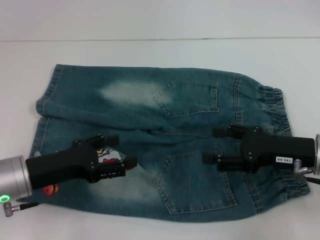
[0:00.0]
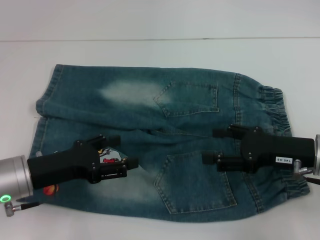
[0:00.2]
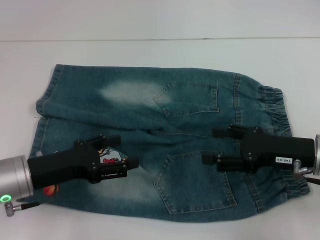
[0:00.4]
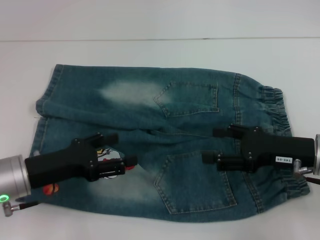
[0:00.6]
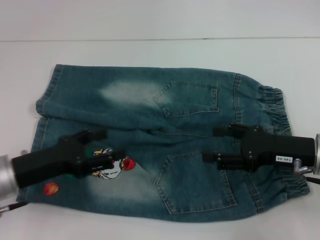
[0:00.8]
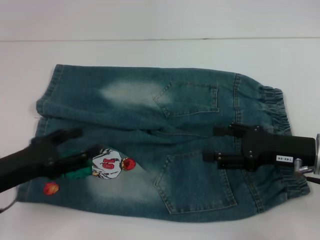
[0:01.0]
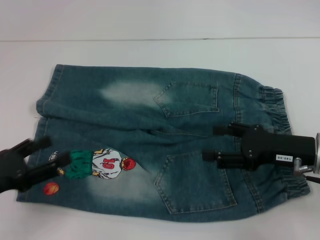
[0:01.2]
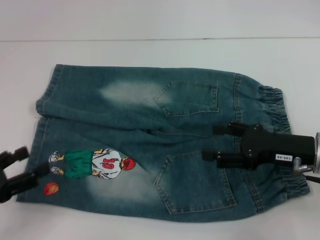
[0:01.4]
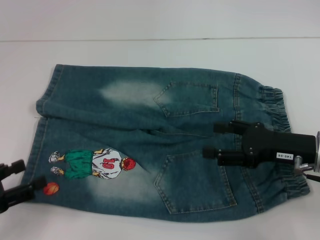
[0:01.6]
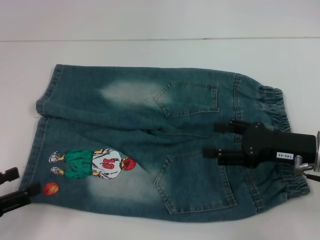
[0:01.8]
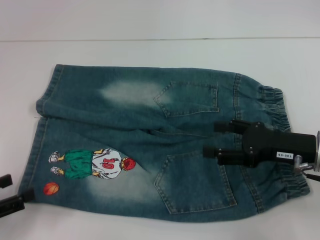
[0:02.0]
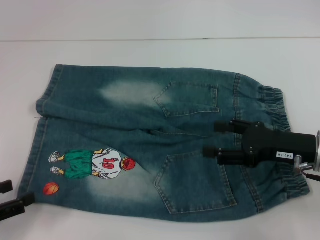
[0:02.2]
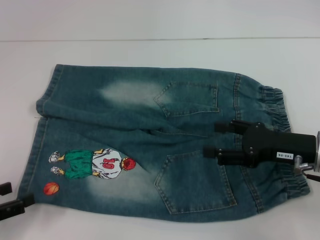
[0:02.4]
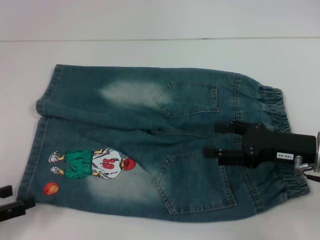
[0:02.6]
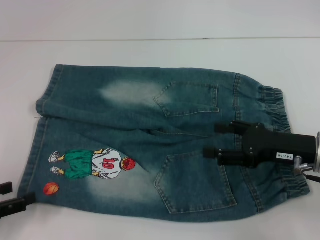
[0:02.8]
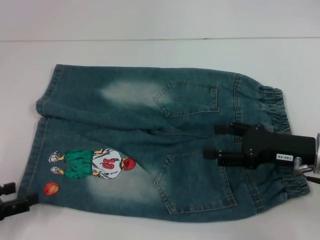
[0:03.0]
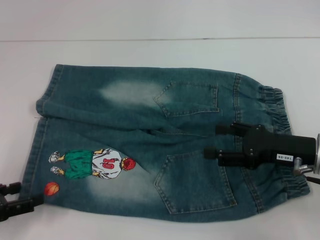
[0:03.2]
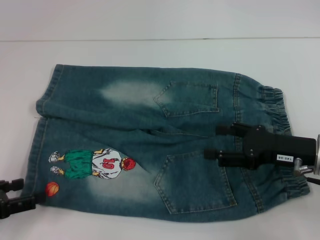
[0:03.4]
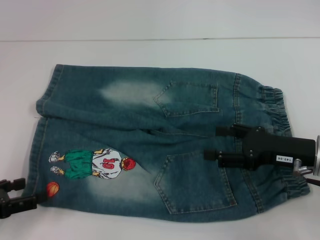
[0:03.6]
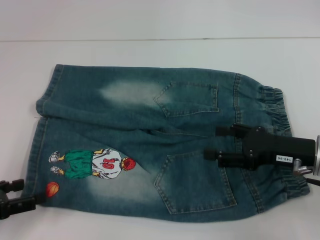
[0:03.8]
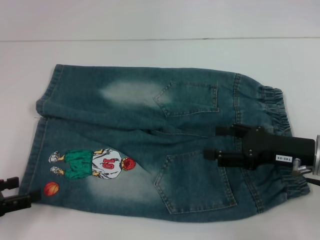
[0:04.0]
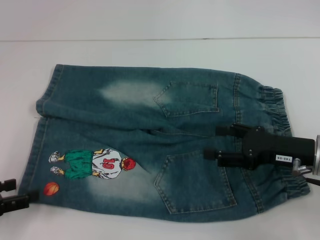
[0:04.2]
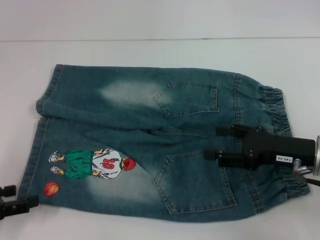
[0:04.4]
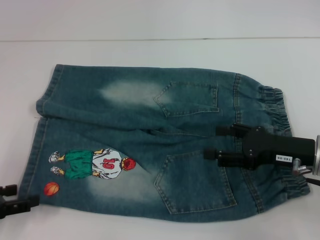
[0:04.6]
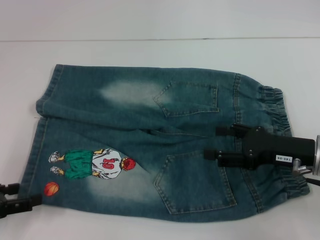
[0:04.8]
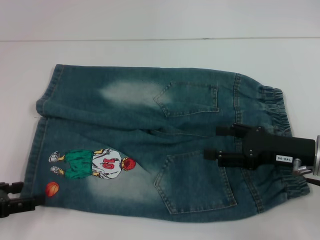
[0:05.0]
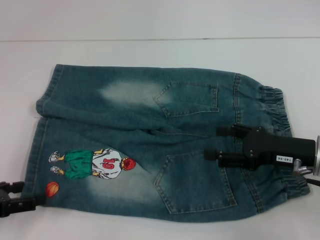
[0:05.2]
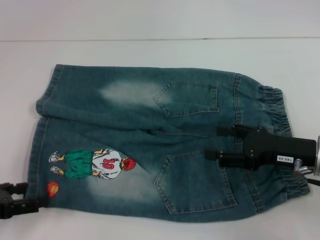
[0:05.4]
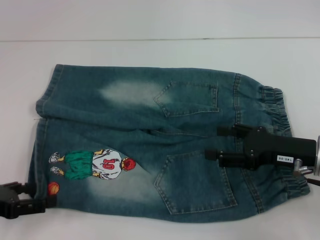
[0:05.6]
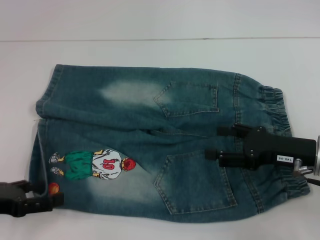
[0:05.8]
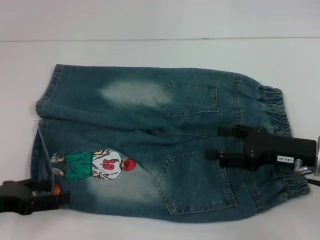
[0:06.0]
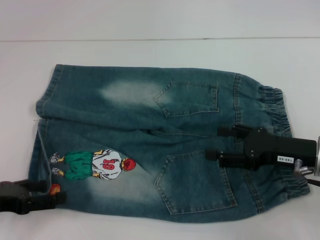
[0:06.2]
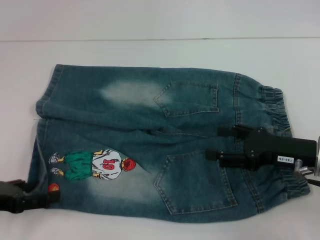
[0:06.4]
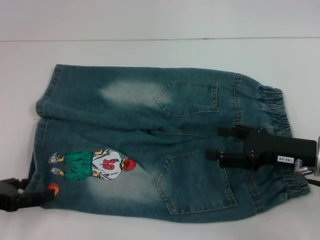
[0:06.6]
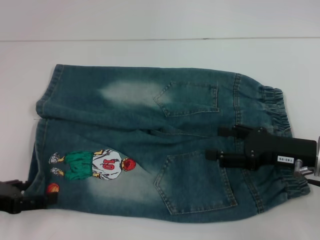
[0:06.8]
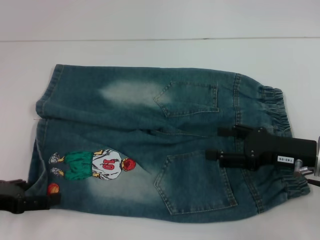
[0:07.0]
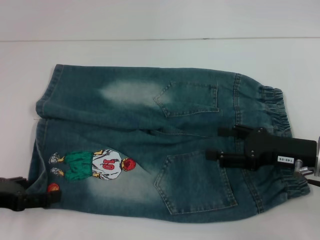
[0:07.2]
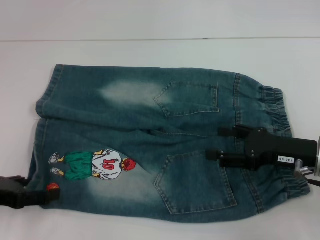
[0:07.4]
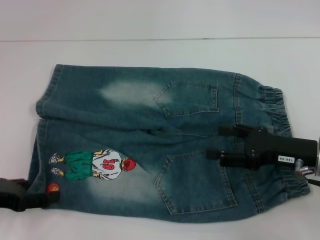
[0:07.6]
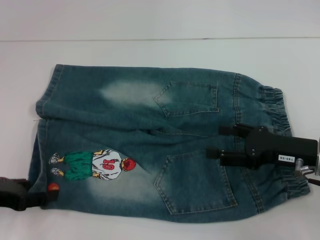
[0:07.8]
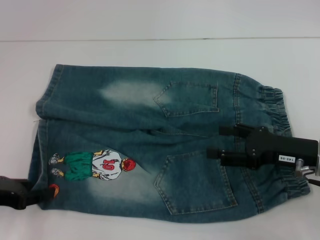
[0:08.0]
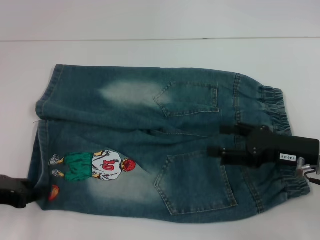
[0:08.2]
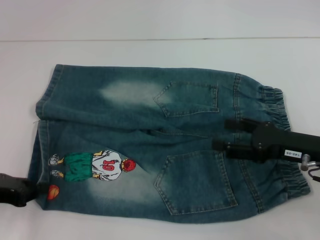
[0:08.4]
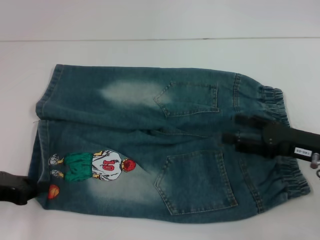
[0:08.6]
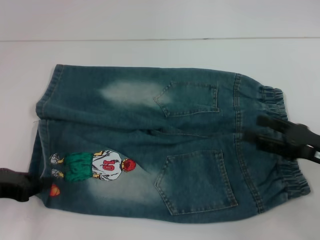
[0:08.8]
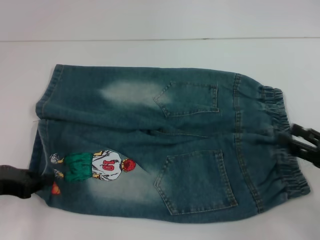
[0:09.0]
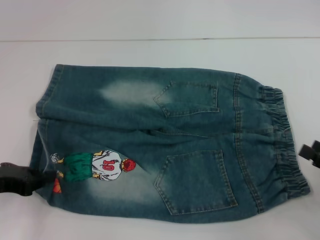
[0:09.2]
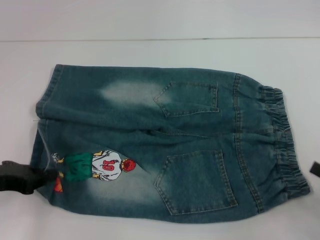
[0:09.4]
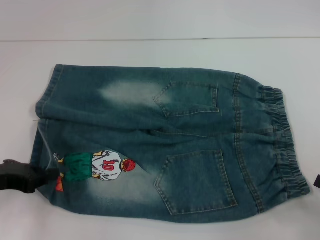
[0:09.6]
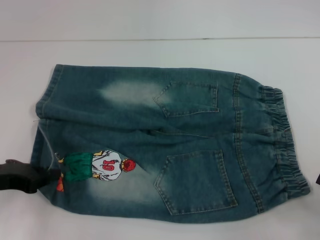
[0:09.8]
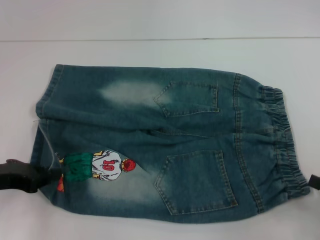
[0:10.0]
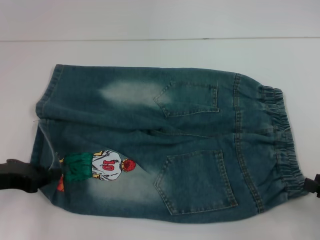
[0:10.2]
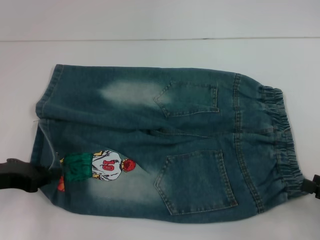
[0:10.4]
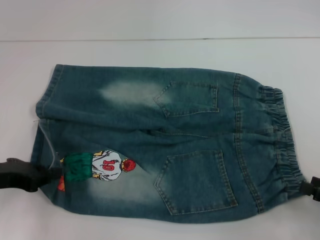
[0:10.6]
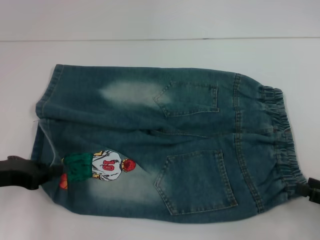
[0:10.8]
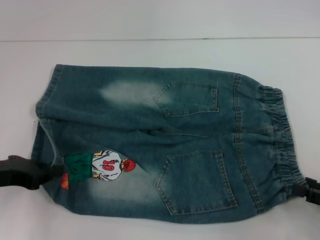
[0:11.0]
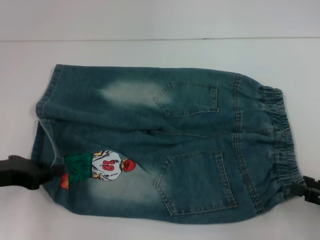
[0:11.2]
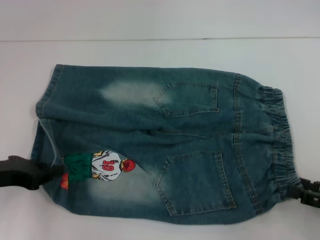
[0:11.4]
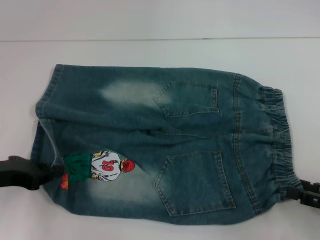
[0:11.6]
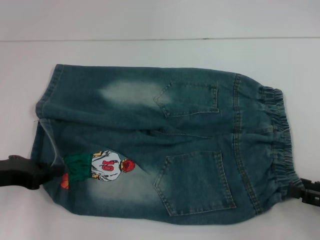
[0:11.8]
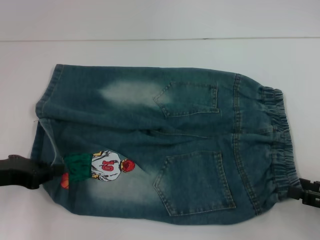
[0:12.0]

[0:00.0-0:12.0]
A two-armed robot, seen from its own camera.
Step, 0:00.0 to 0:09.2: Grab the lower left pant leg with your left hand.
0:00.0 to 0:01.6: The left gripper heads to the left and backward, covering some 15 cm.
0:01.6 to 0:03.0: The grippers make only small movements.
0:03.0 to 0:07.6: The grippers stay close to where they were, moving slightly.
0:07.6 to 0:09.0: The right gripper is displaced to the right and backward by roughly 10 cm; the left gripper closes.
0:09.0 to 0:10.4: The right gripper travels backward by approximately 5 cm.
0:10.4 to 0:12.0: There are only small adjustments of the grippers.

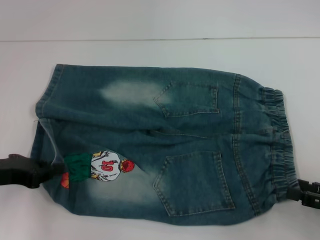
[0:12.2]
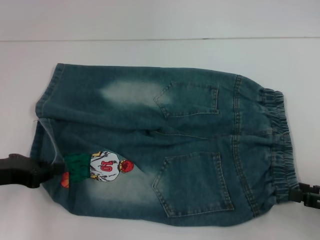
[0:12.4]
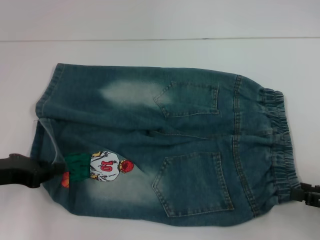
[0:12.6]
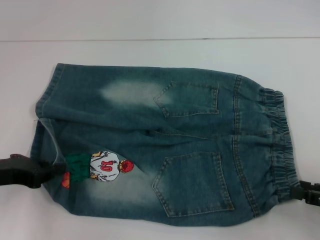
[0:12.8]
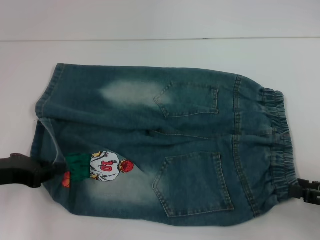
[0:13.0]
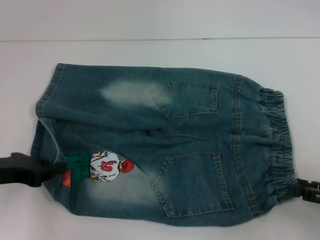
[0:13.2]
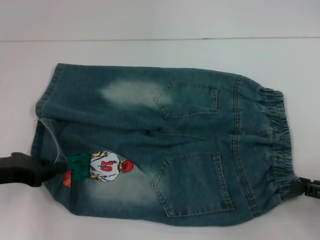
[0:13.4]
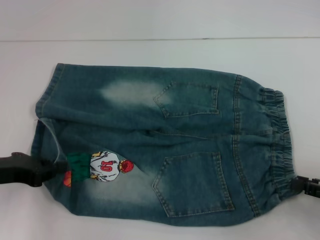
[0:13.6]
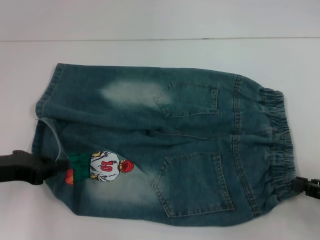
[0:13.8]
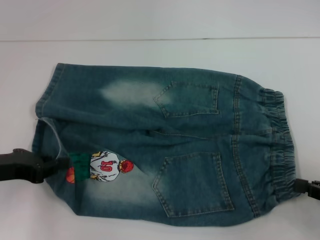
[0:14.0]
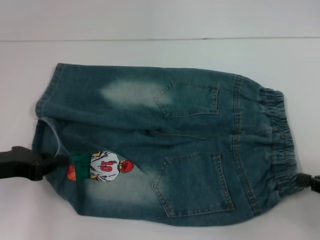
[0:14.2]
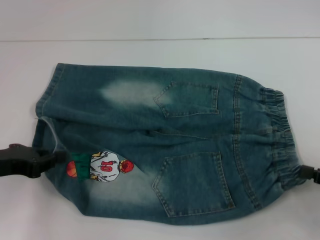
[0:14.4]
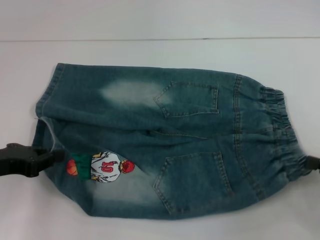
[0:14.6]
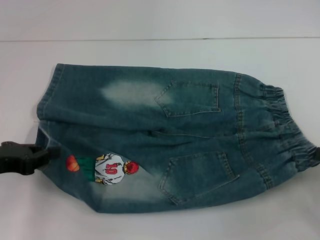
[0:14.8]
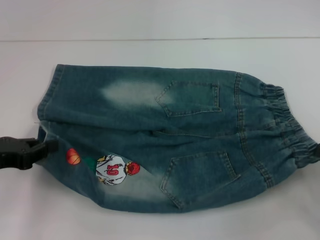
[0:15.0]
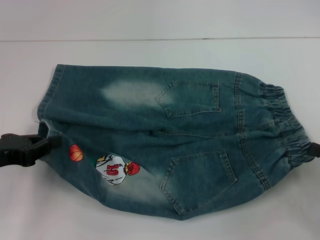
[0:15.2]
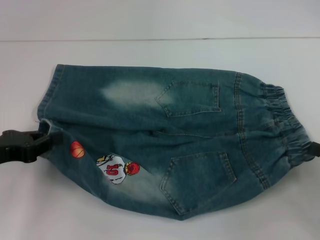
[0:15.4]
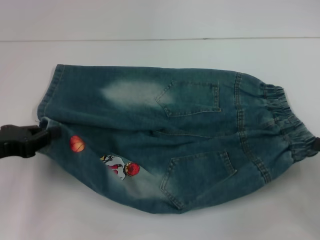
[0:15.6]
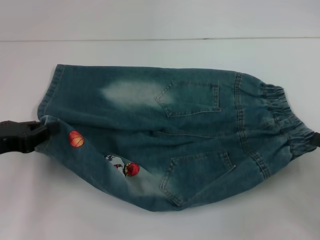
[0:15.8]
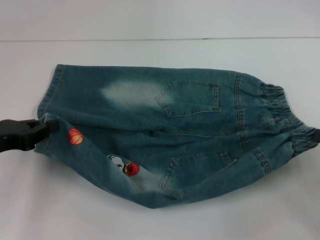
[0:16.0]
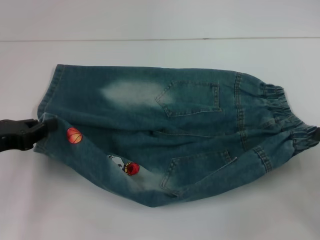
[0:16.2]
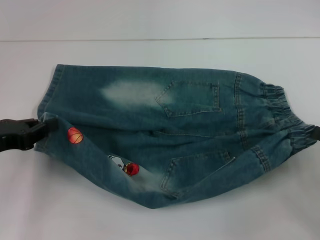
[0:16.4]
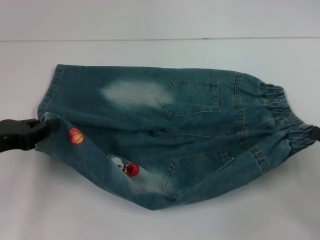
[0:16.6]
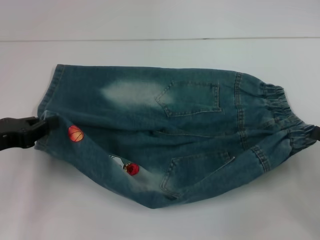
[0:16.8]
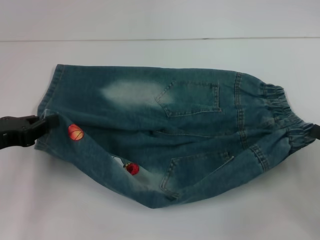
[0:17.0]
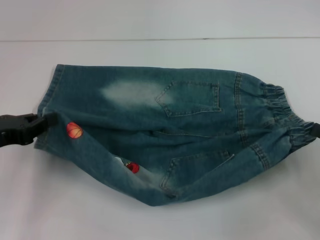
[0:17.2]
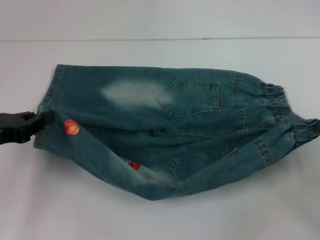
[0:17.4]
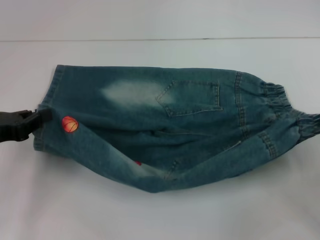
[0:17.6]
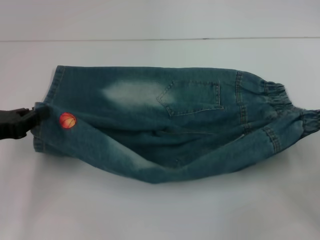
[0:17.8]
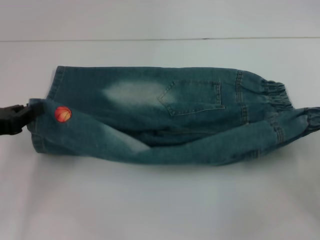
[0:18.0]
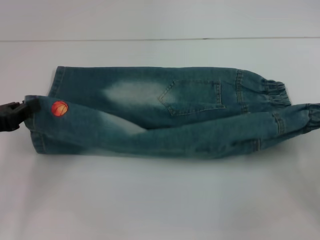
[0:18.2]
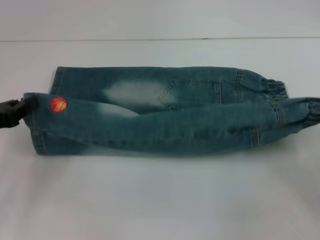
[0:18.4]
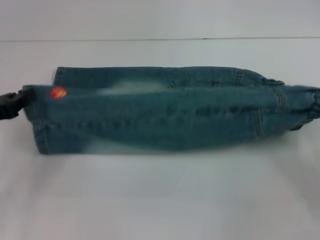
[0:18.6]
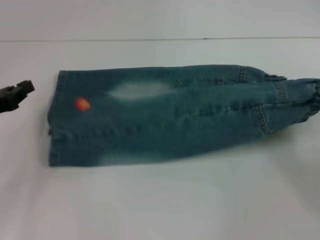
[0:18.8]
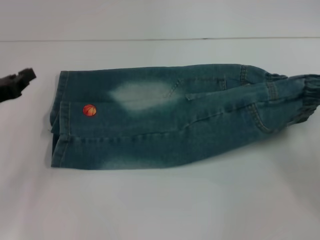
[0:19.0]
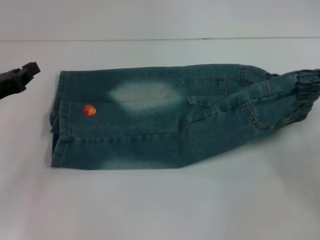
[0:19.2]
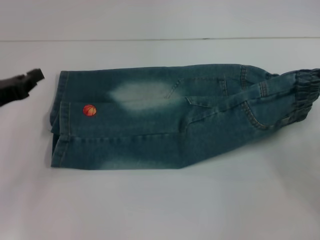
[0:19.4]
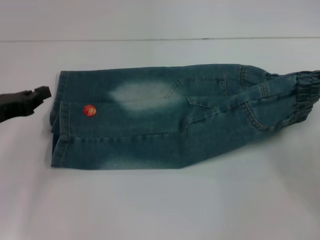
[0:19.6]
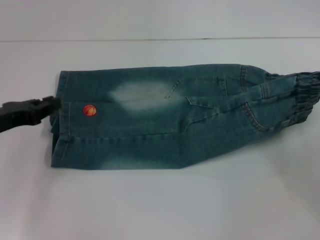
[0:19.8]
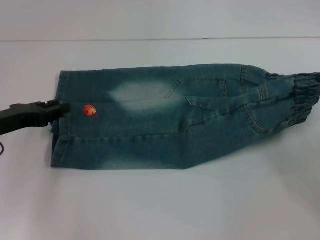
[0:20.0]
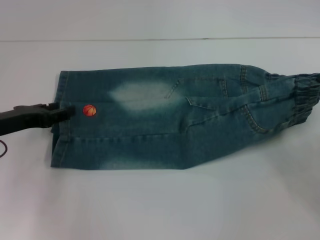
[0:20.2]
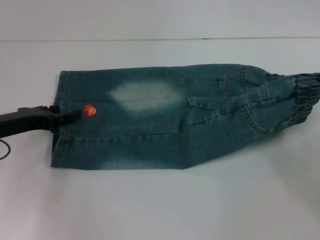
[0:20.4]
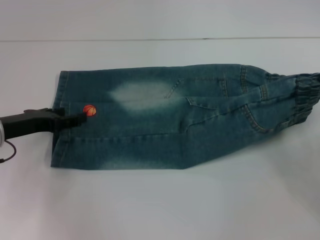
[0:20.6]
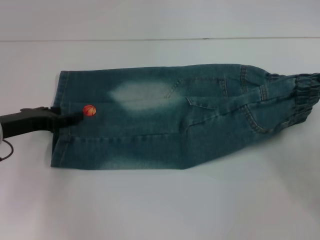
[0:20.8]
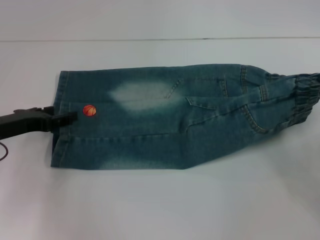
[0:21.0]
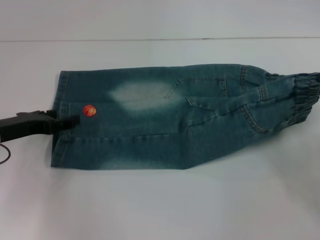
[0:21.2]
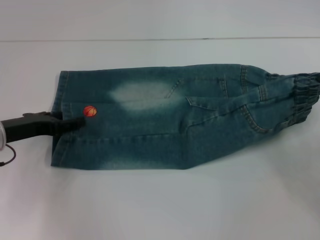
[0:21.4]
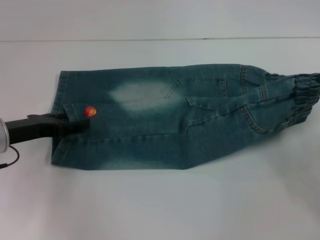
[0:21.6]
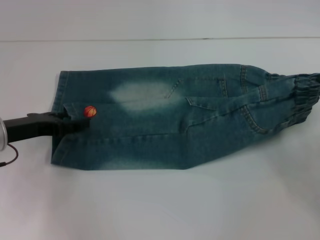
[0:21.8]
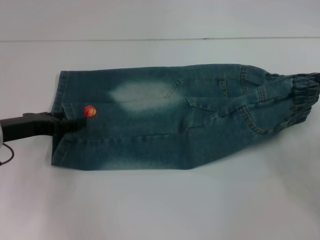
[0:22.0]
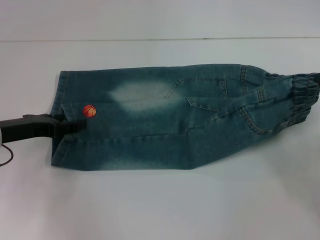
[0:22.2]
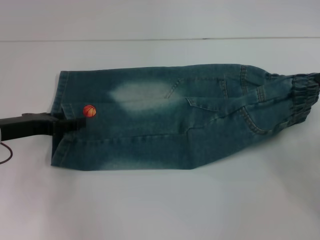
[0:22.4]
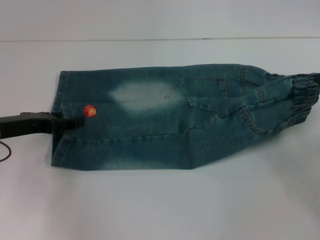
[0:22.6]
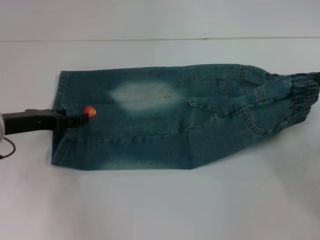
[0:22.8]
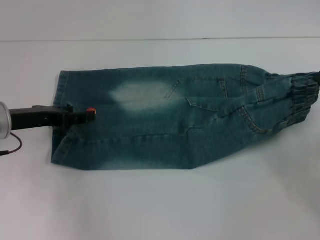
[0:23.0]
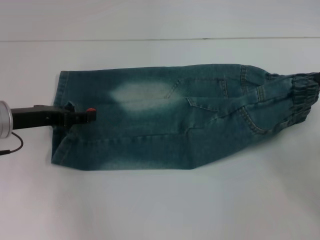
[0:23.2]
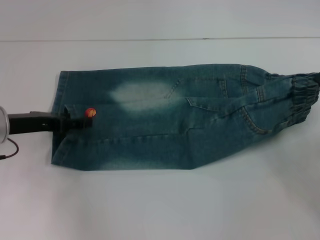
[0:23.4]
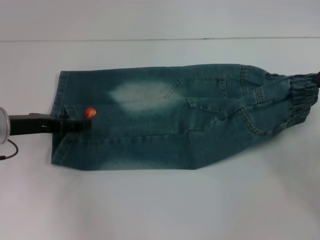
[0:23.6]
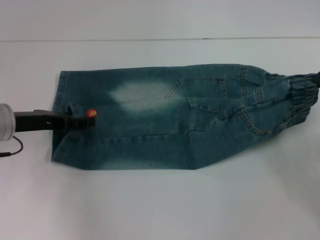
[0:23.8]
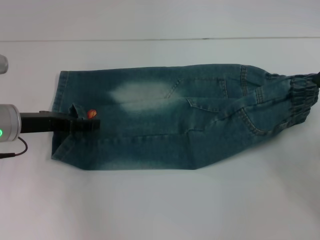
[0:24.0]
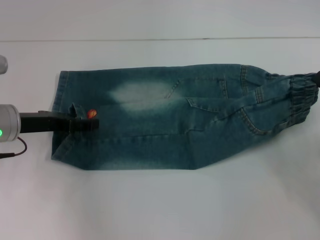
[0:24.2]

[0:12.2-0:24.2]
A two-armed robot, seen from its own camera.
0:12.2 to 0:13.8: The right gripper closes.
0:13.8 to 0:15.2: The right gripper closes its fingers.
0:15.2 to 0:16.6: The grippers move only a little.
0:18.2 to 0:19.8: The grippers move only a little.
0:19.8 to 0:21.2: The left gripper opens up.
0:21.2 to 0:24.2: The grippers stay close to where they were, moving slightly.
